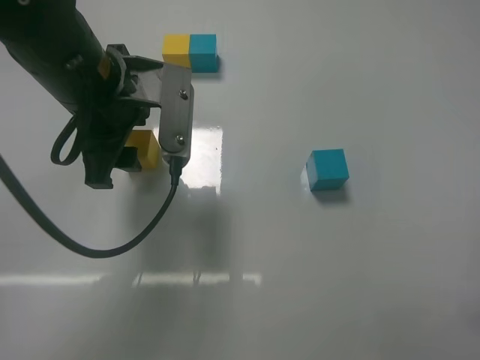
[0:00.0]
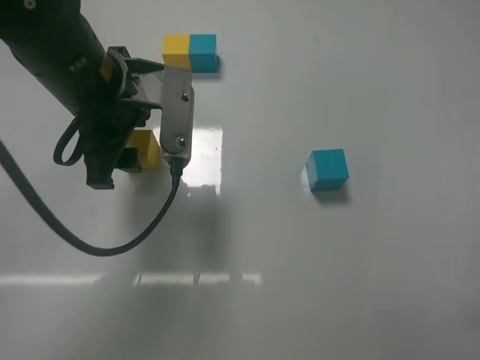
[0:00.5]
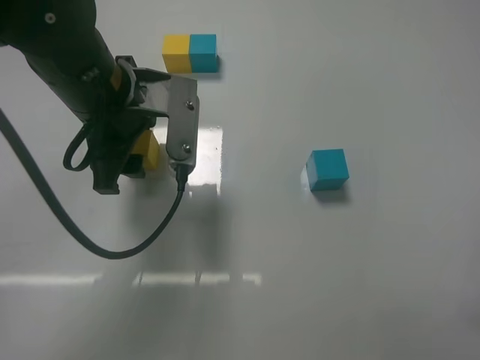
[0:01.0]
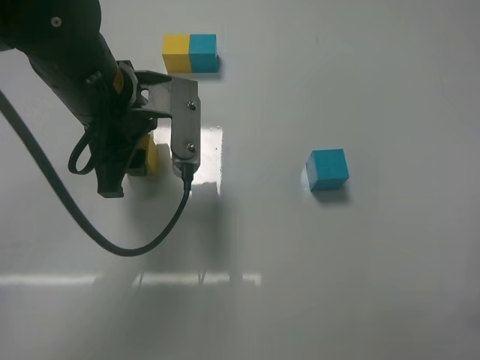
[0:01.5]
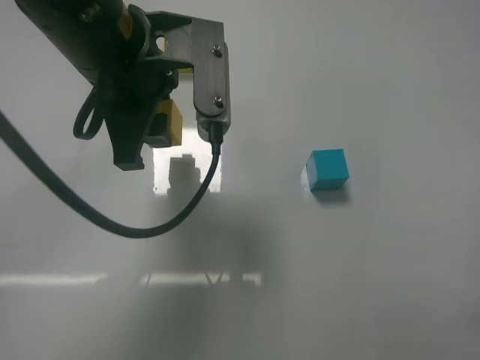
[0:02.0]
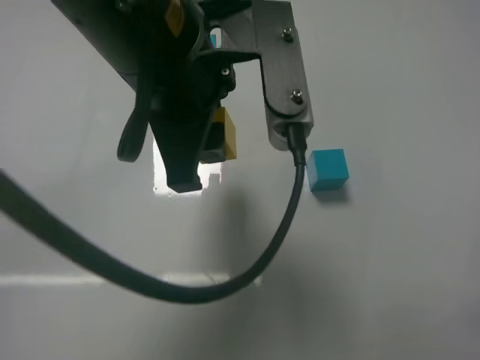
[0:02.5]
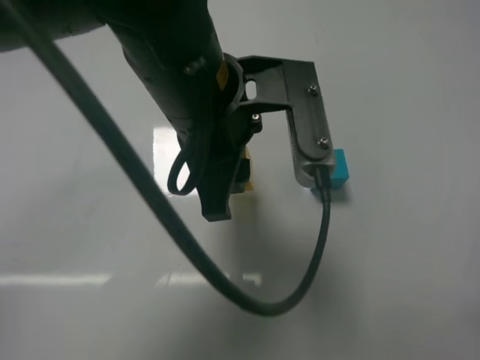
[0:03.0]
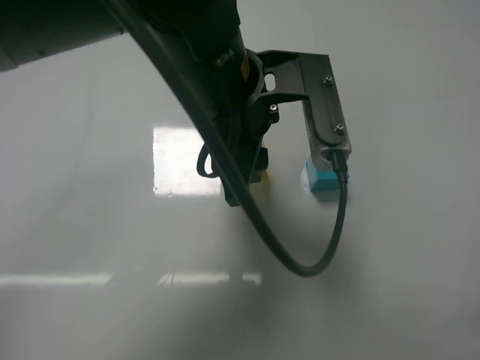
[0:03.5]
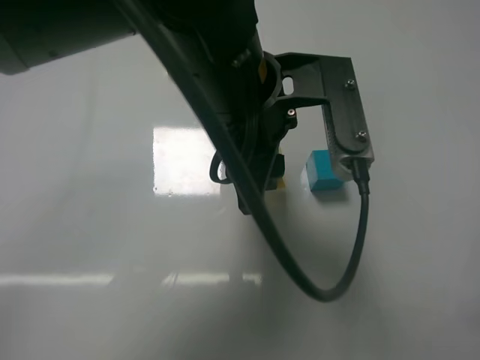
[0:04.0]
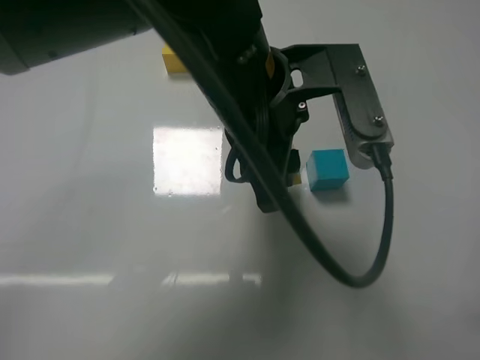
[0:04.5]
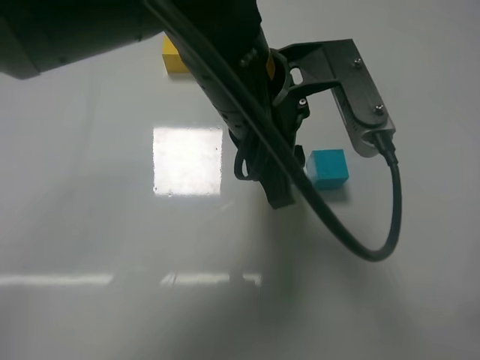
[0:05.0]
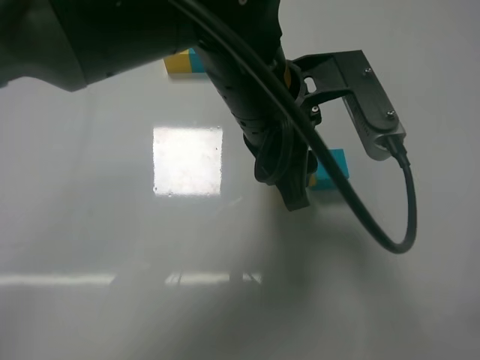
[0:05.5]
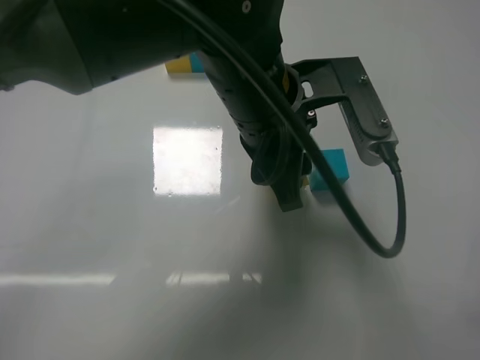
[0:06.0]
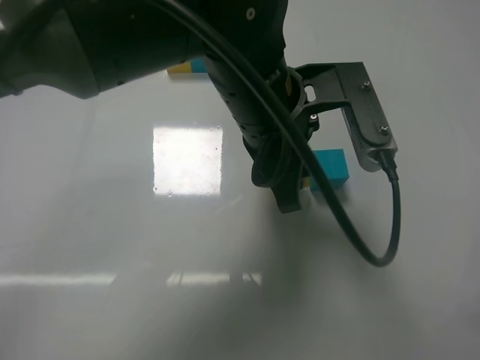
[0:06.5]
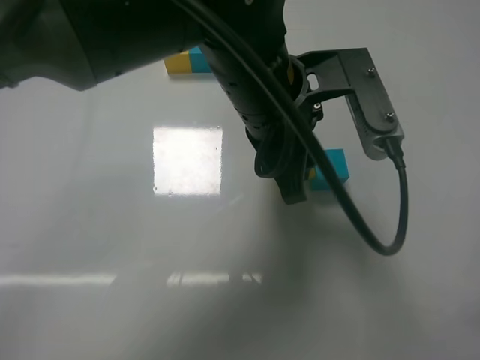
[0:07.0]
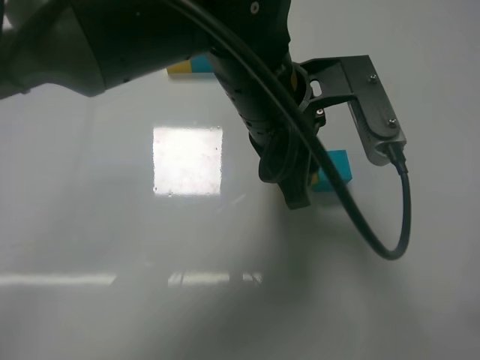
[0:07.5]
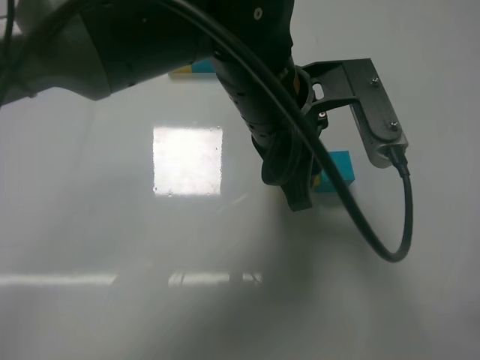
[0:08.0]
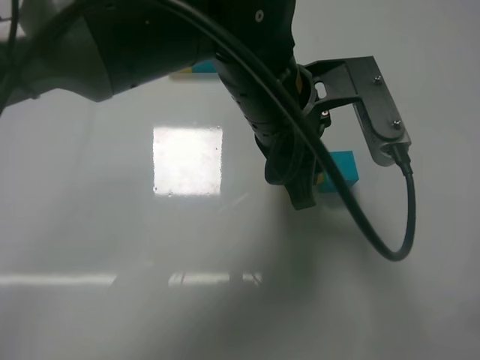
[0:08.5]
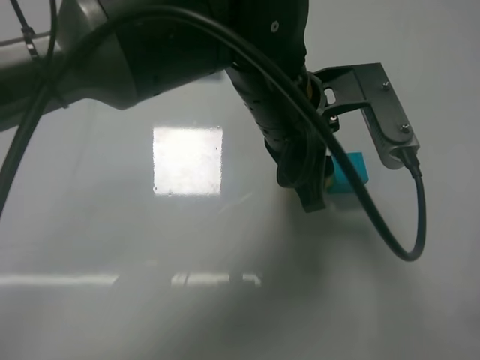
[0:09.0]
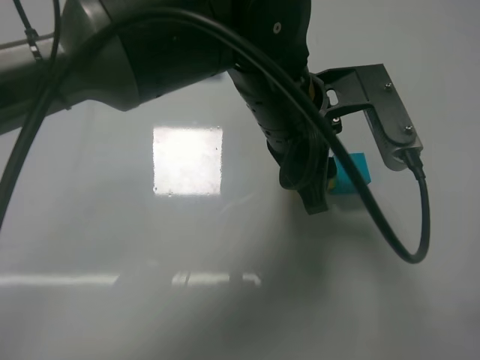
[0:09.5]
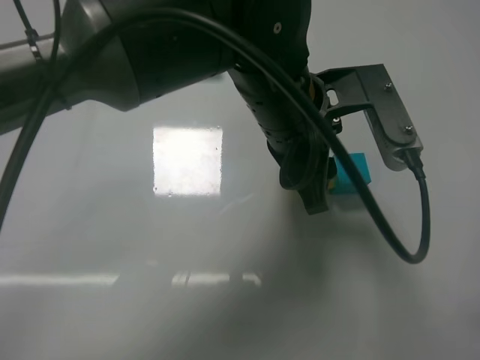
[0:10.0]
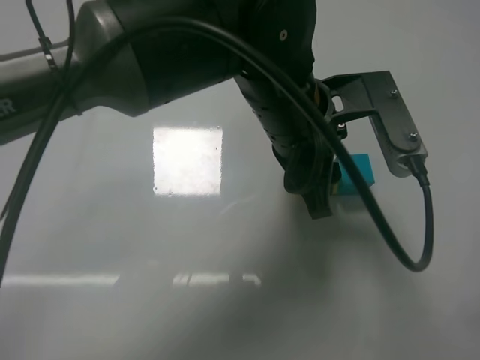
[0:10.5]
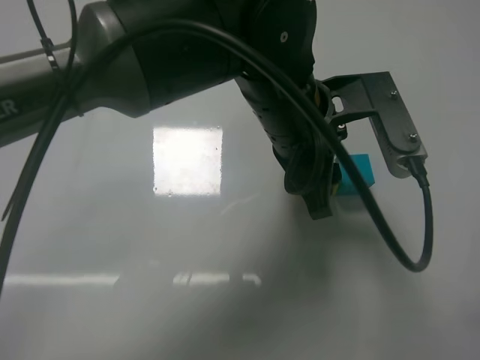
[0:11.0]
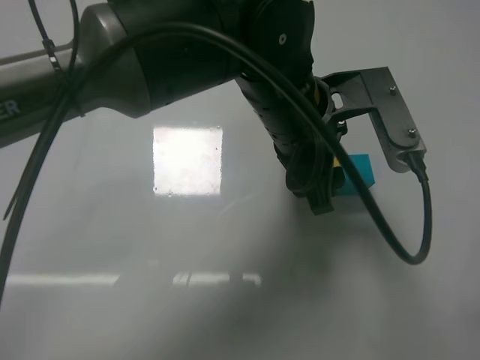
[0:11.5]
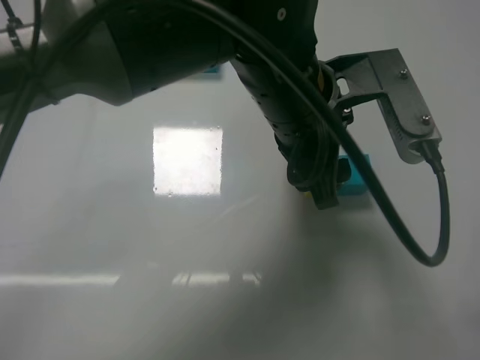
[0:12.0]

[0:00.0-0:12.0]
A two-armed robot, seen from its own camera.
Task of the whole recording: According to the building block template in front, assemble the scattered blocks together.
Step, 0:01.5 to 0:11.5: Put the yellow cube on the left of the blue cube with the left gripper.
0:00.0 to 0:02.0: The left gripper changes place by approximately 5 cm, and closes its fingers.
0:02.0 to 0:04.0: The left gripper goes some 10 cm to the right.
0:04.0 to 0:06.0: There are only small adjustments of the grippers.
0:06.0 to 0:08.0: Both grippers stay put.
0:08.0 to 0:10.0: The grippers stay close to where they were, moving slightly.
0:10.0 to 0:12.0: The left gripper opens its fingers.

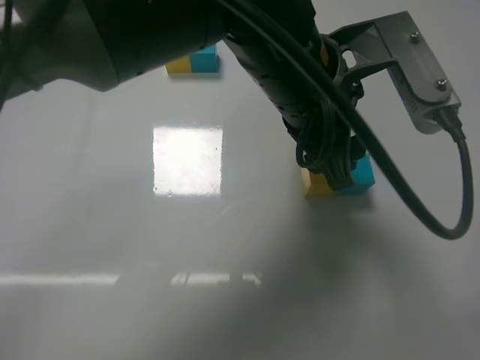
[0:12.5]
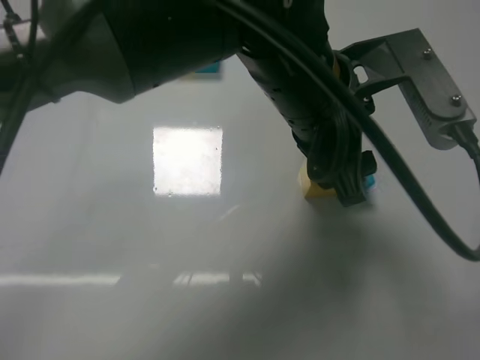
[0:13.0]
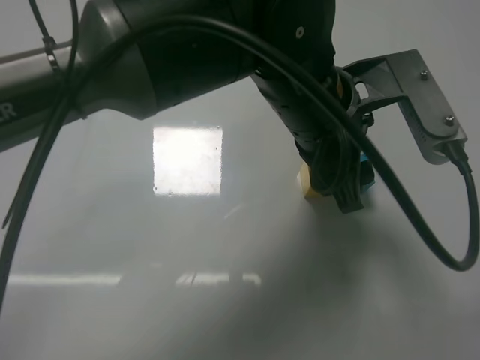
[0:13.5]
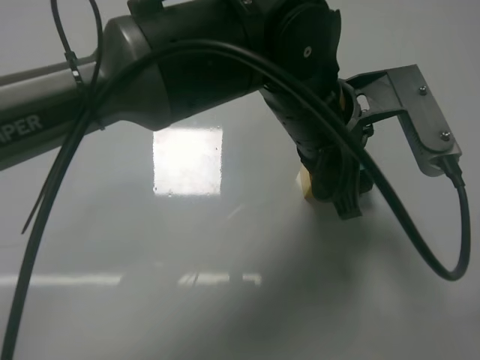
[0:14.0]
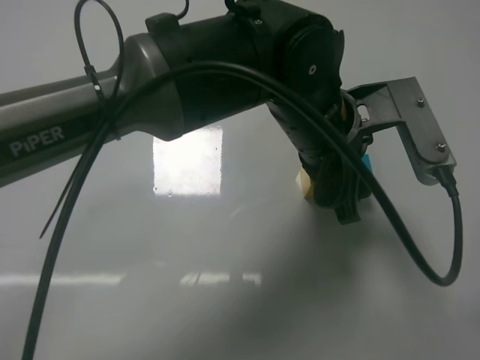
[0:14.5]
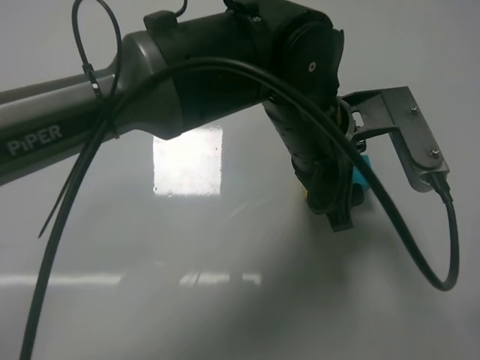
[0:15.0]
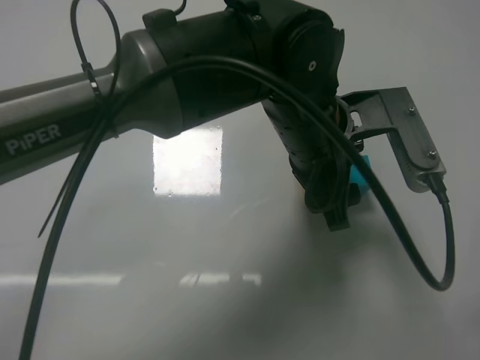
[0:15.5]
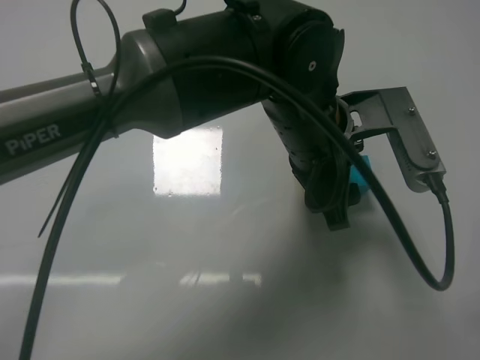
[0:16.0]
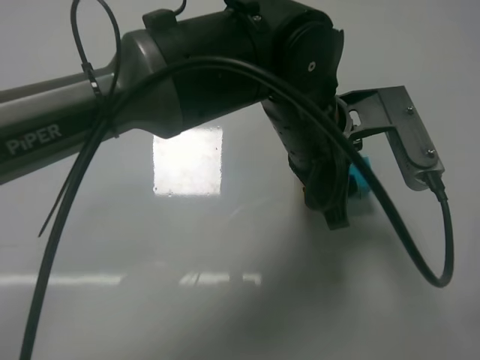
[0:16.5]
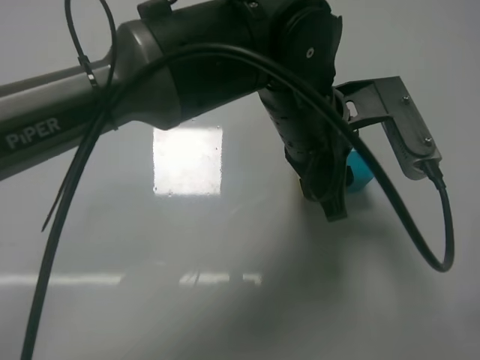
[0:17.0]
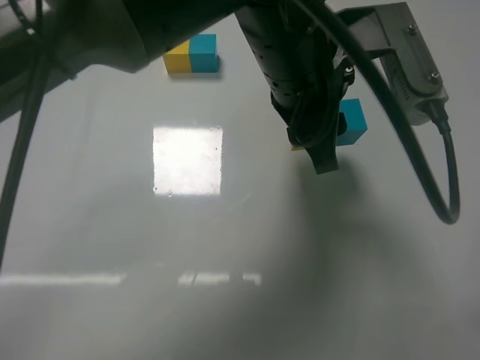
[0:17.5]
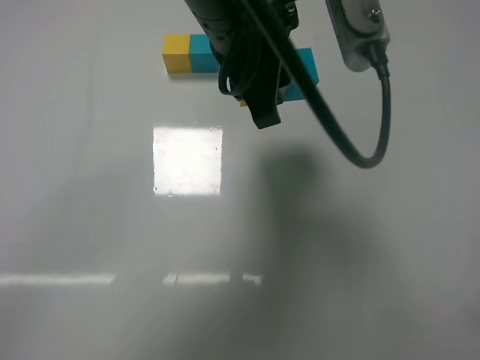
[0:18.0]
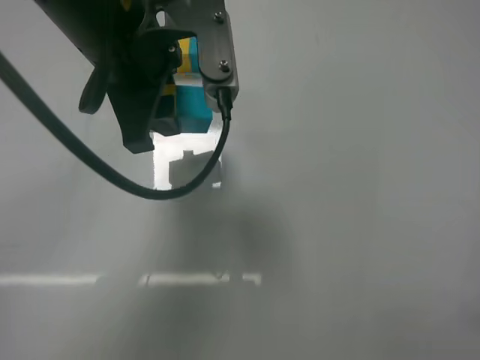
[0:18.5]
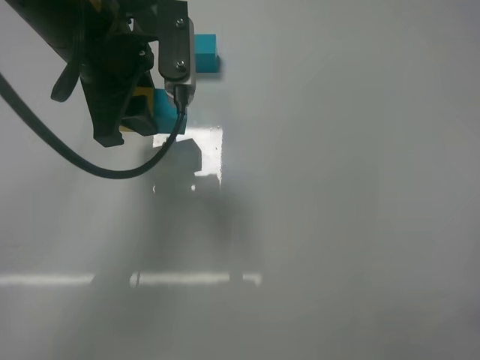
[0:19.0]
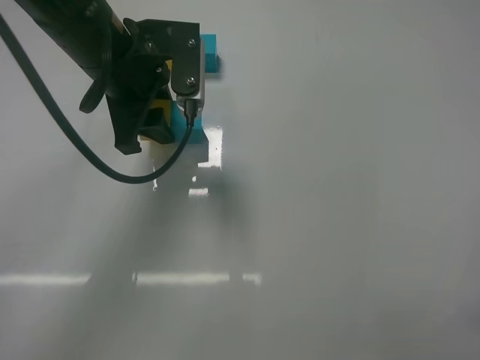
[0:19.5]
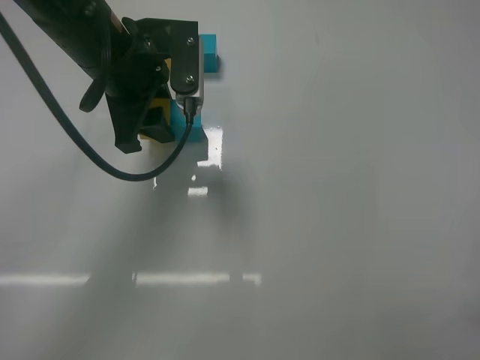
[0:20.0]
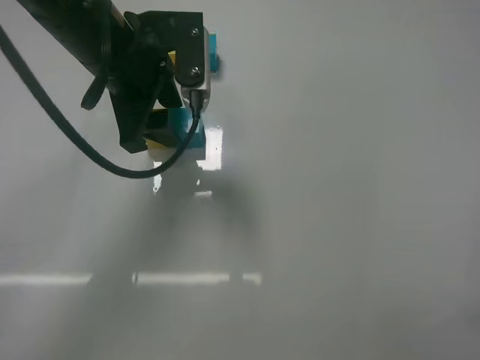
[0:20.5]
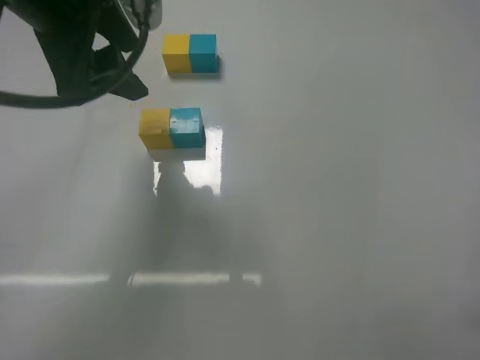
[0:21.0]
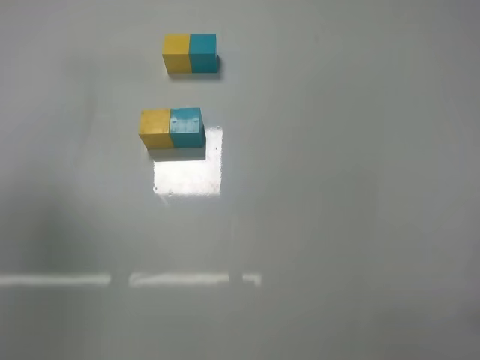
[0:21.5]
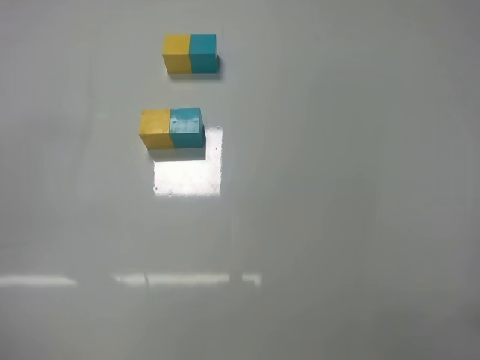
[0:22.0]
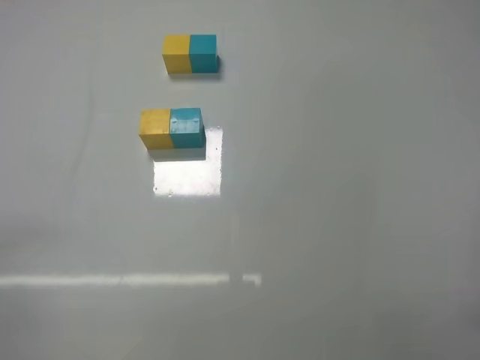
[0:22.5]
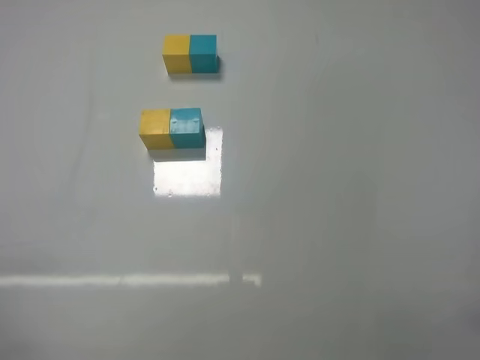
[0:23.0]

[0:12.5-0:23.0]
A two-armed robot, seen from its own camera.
Task of the whole recording: According to the building block template in front, assemble the scattered blocks together.
Step, 0:12.5 to 0:20.5: Put the yellow cube and blue cube in the center of the table with the left gripper.
0:12.5 to 0:14.5: The left gripper shifts by about 5 cm.
0:14.5 to 0:16.5: The left gripper closes up.
0:16.5 to 0:19.0: The left gripper heads to the left and upward, covering approximately 20 cm.
0:19.0 to 0:21.0: The left gripper travels upward by some 5 cm, and opens.
0:21.0 to 0:23.0: The left gripper shifts approximately 35 cm backward, downward and to the left.
